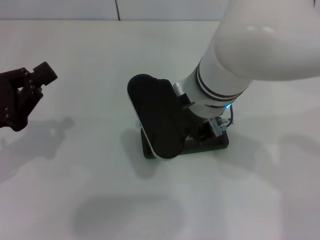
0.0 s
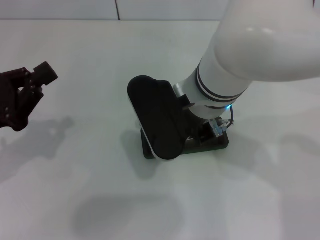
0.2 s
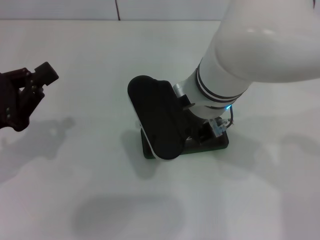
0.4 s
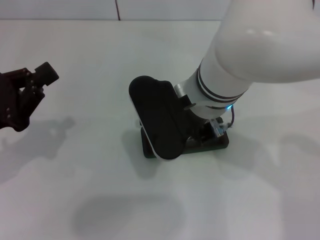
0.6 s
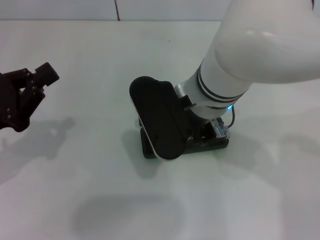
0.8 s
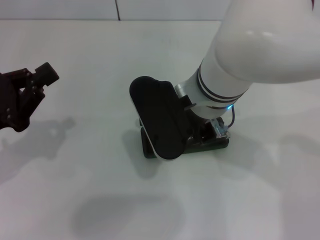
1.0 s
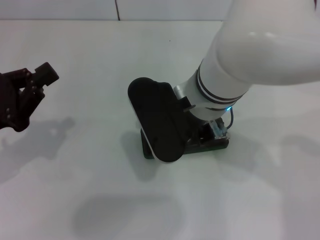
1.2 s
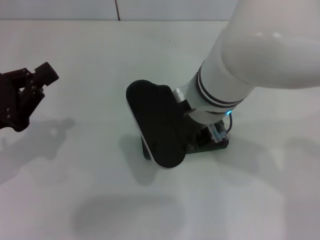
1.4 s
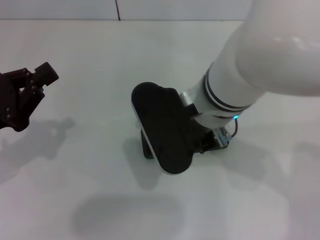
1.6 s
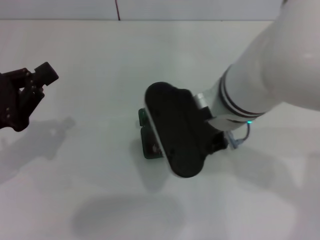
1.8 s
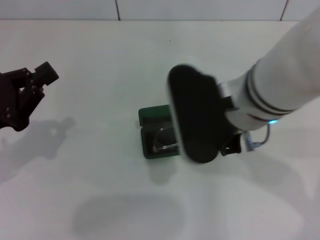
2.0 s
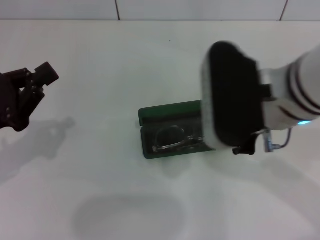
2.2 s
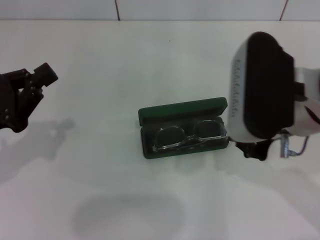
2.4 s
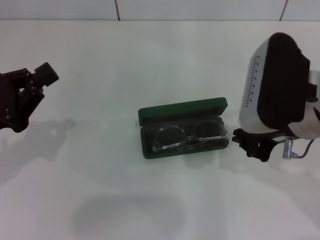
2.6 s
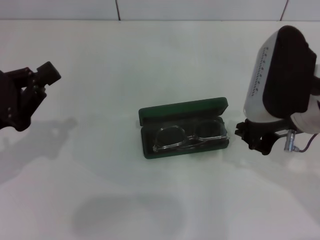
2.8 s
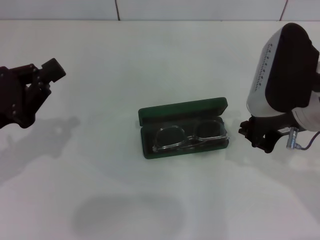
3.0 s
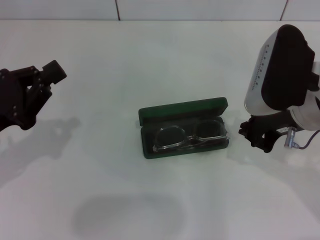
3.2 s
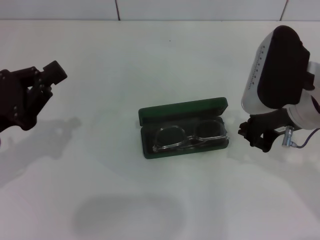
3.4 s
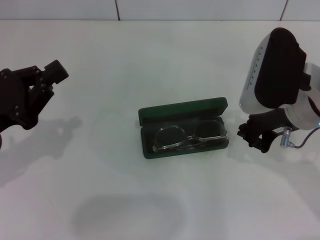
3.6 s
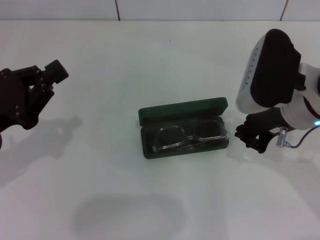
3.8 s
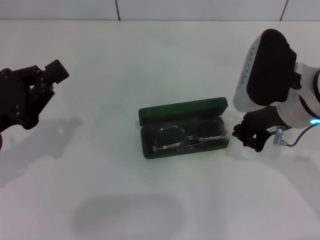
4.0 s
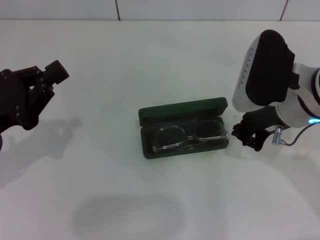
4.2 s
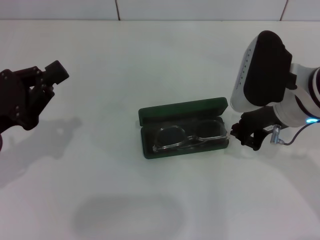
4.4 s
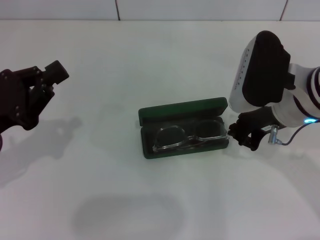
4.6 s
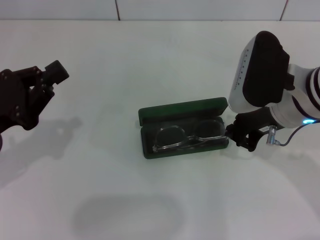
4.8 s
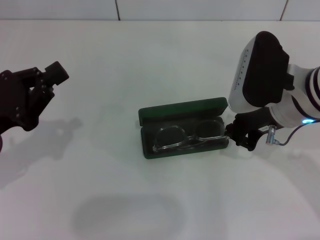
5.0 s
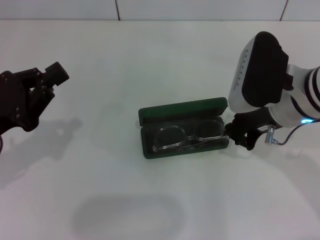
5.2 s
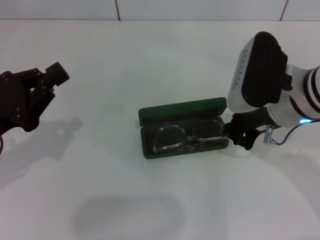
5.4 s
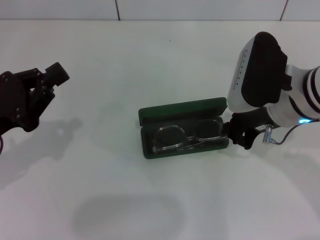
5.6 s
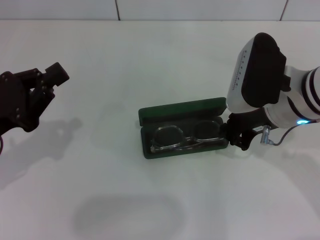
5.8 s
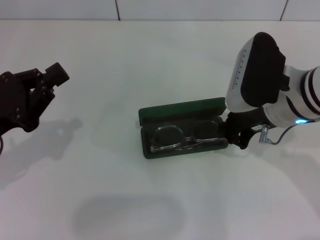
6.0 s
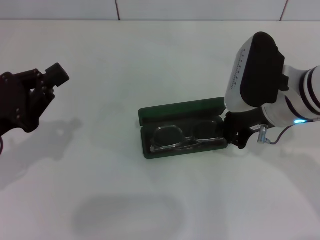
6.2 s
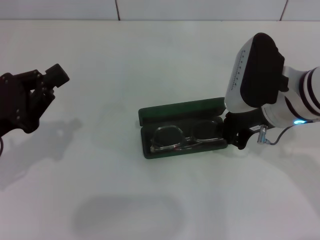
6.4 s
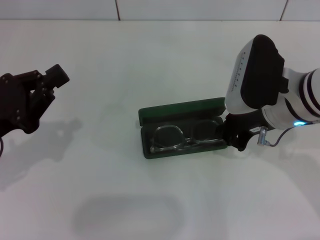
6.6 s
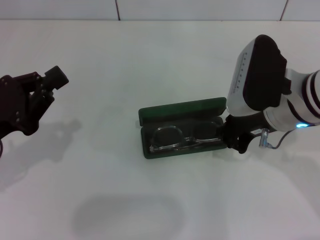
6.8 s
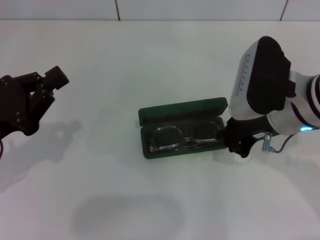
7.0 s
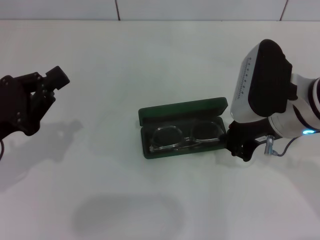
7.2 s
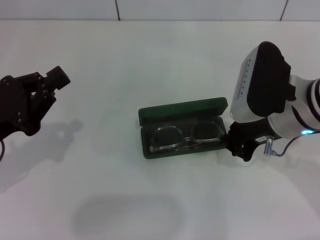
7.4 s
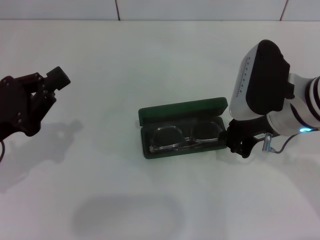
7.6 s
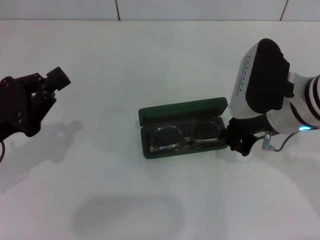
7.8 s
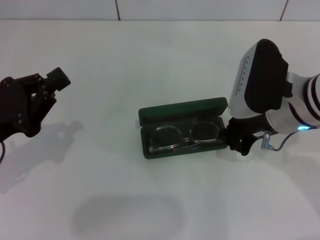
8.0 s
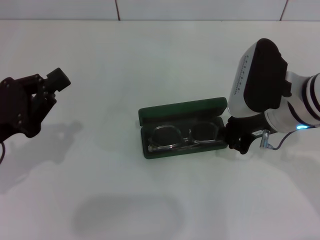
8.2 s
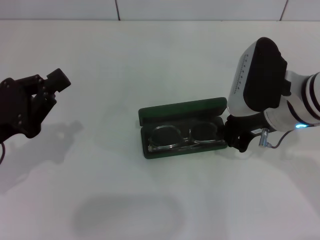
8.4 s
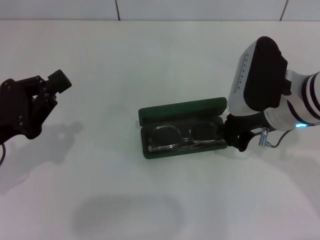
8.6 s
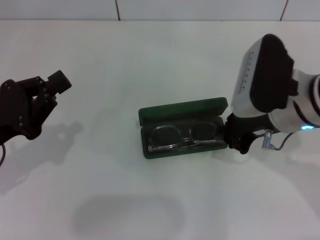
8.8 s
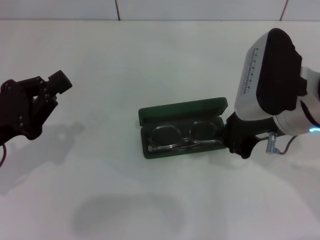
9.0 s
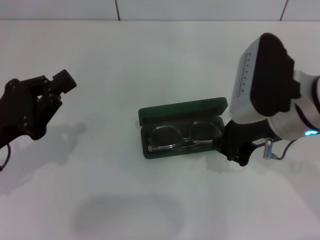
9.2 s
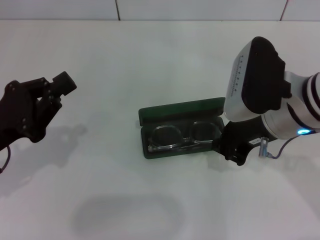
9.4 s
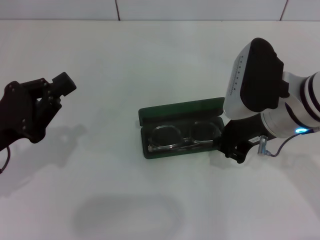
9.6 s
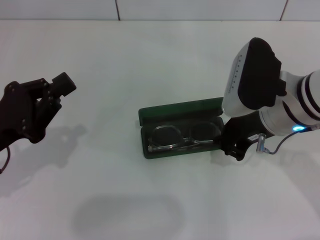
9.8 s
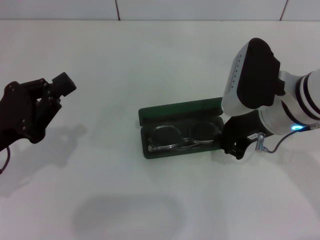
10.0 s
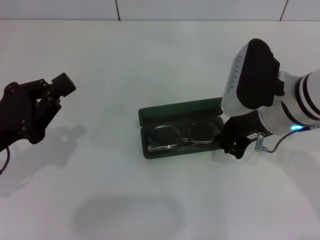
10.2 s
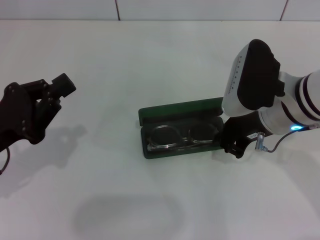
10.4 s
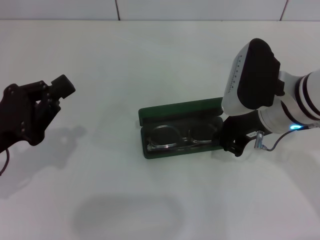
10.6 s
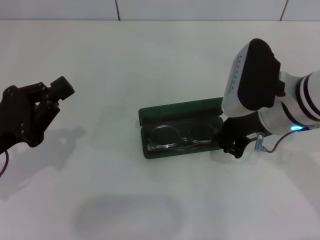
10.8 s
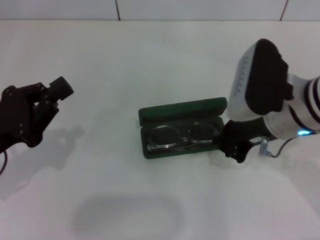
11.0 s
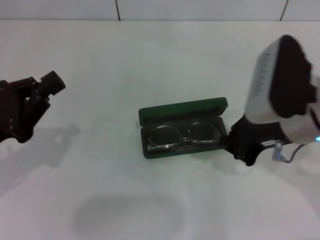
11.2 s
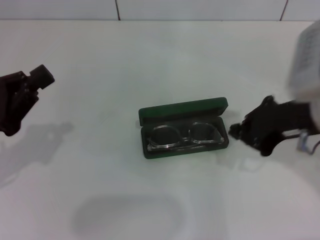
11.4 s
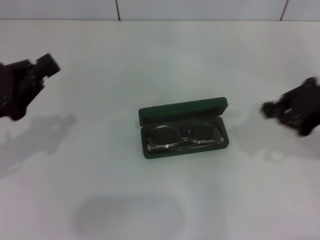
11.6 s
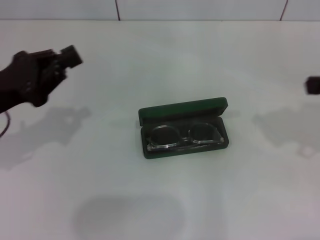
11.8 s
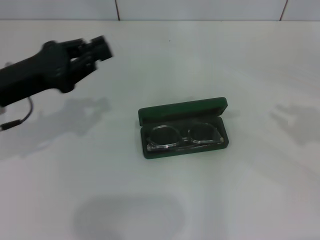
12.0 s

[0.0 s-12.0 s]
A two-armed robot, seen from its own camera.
Step, 0.0 to 11.2 s: Put the glasses into the case with your right hand.
0.0 to 1.6 s: There are only small adjustments of the grippers.
1.6 to 3.0 s: The right gripper moves to the right, about 15 cm.
3.0 to 9.0 s: The grippers make only small movements.
9.0 to 10.4 s: The grippers stay close to where they were, moving slightly.
10.4 to 12.0 s: The right gripper is displaced to the right by some 25 cm, while the left gripper is displaced forward by about 5 cm.

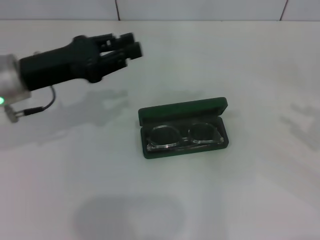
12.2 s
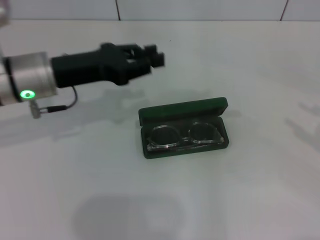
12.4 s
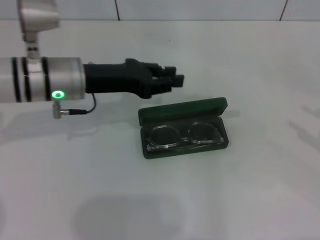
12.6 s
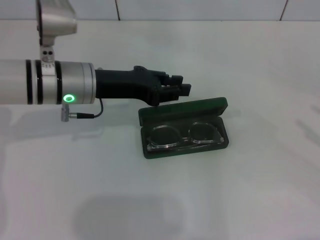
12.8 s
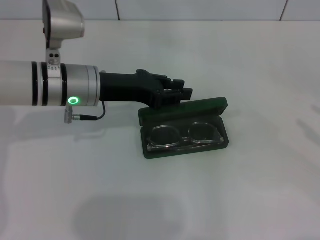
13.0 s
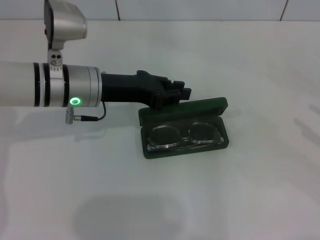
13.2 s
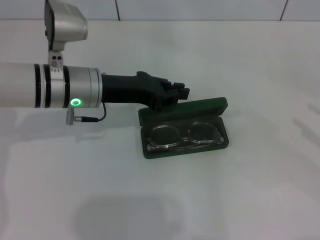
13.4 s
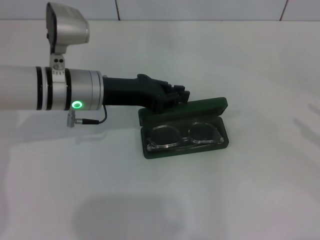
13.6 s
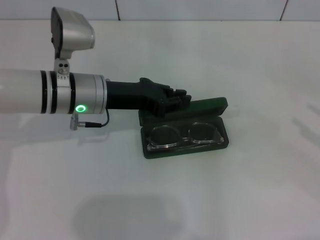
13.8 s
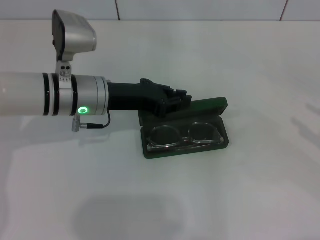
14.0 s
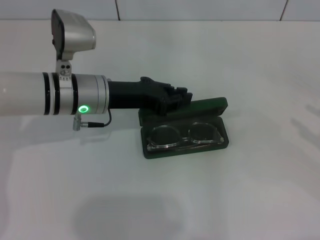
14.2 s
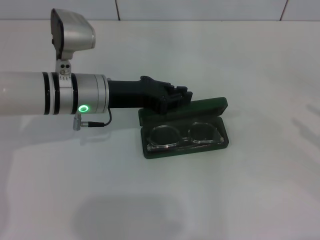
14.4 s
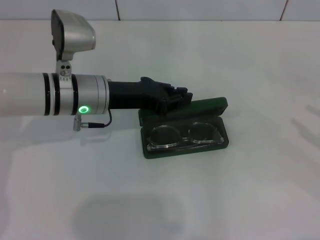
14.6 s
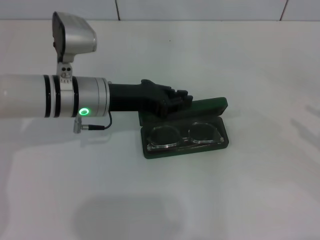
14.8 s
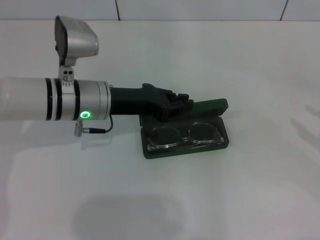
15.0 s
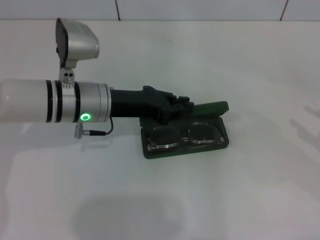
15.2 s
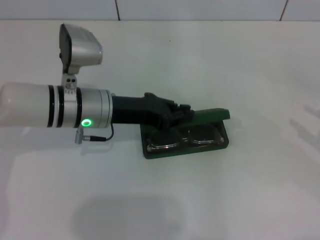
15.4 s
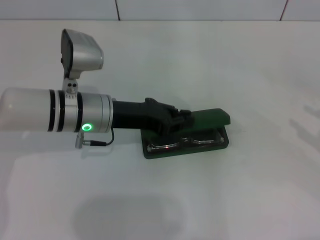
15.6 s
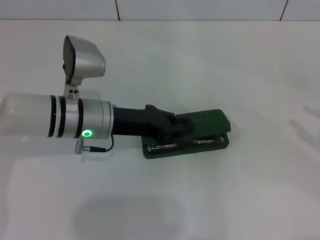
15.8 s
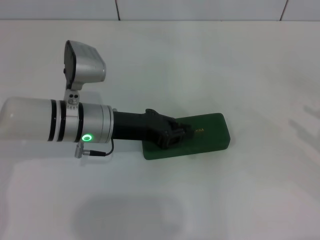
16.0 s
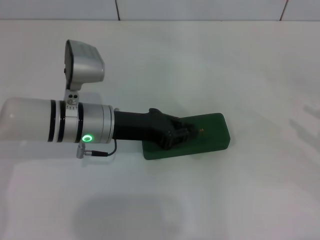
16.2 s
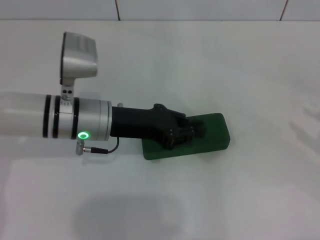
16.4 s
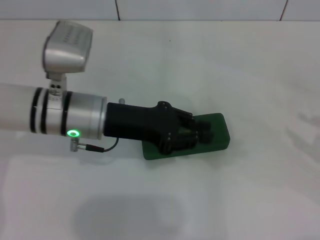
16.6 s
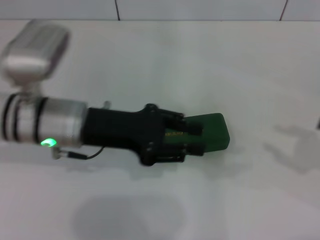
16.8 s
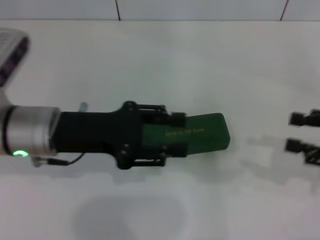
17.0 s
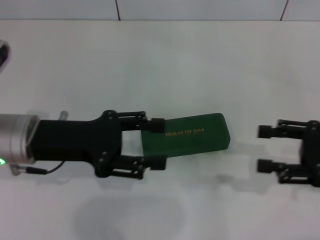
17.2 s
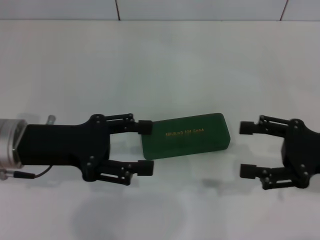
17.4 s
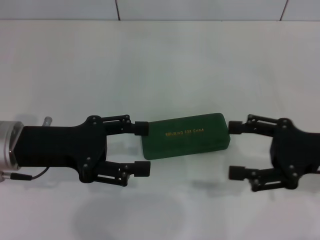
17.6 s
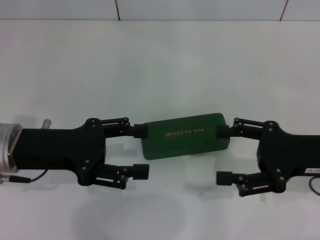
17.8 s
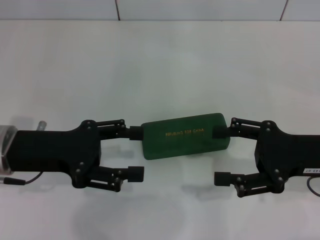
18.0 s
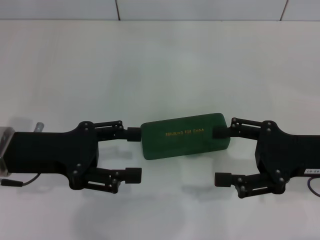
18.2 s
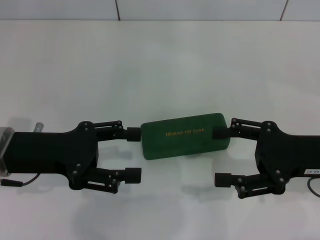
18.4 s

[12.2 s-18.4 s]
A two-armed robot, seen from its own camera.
Step, 12.2 to 16.2 s: Close the glasses case with your left hand.
12.2 to 13.8 s: The right gripper ends up roughly 5 cm from where it was, and opens its fingers. Meanwhile the left gripper shifts roughly 10 cm to the right.
13.8 to 15.4 s: The grippers make only small movements.
15.4 to 16.8 s: The left gripper changes place by approximately 5 cm.
16.8 to 18.4 s: The right gripper is displaced to the left by approximately 15 cm; the left gripper goes about 10 cm to the left, and opens up.

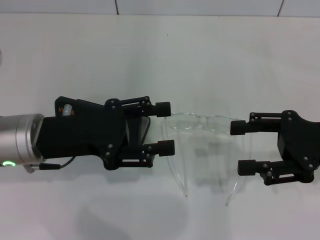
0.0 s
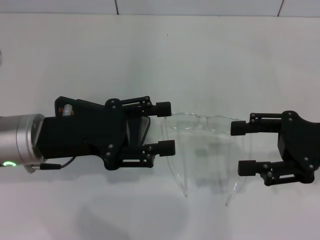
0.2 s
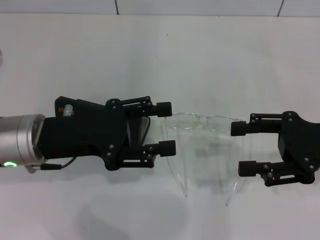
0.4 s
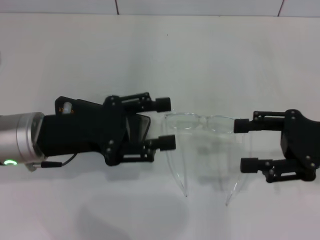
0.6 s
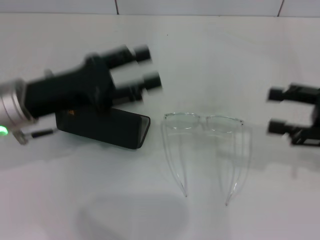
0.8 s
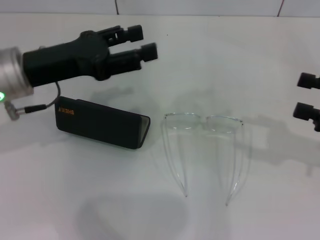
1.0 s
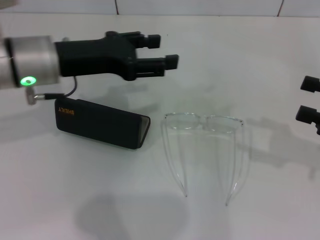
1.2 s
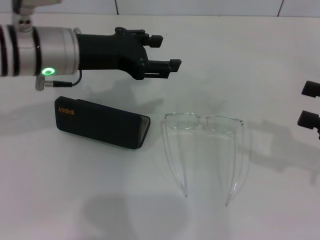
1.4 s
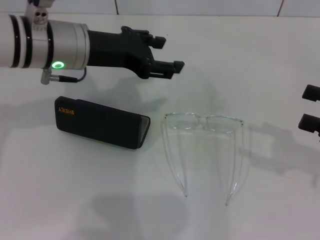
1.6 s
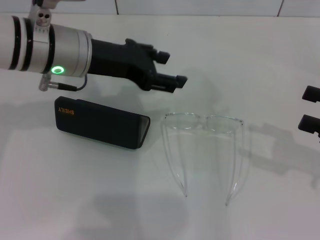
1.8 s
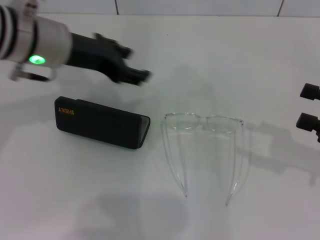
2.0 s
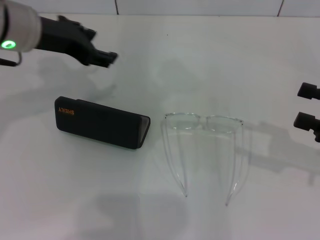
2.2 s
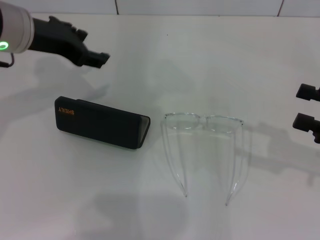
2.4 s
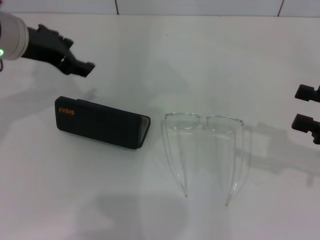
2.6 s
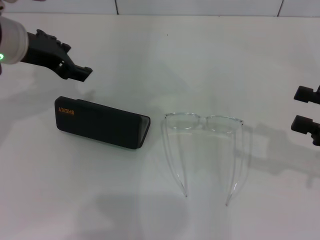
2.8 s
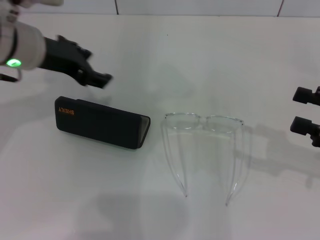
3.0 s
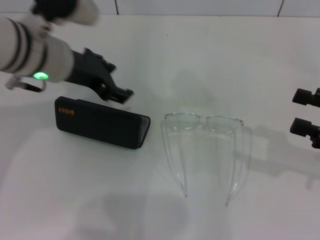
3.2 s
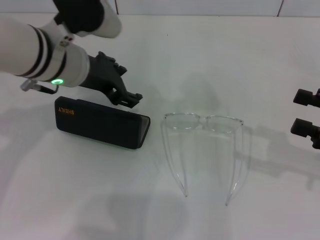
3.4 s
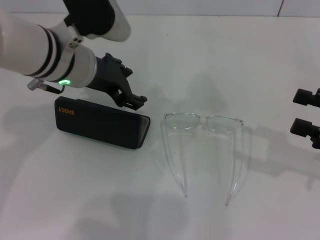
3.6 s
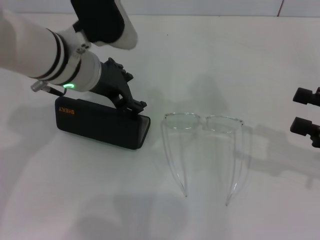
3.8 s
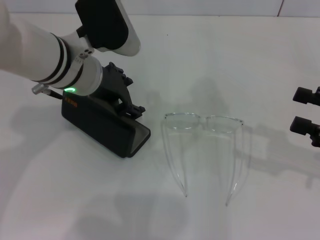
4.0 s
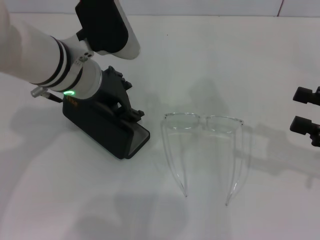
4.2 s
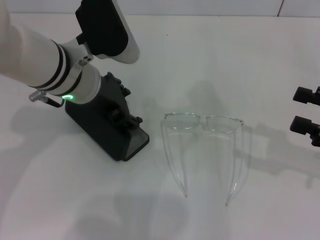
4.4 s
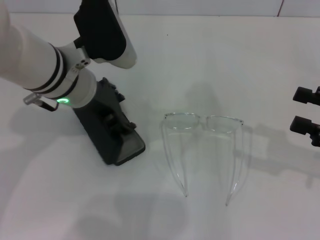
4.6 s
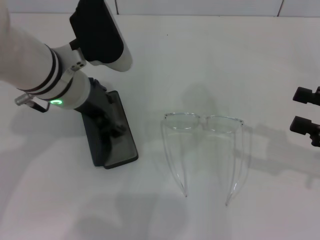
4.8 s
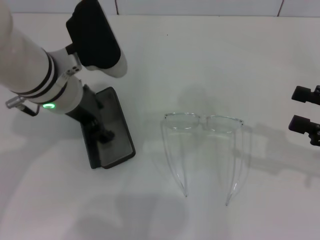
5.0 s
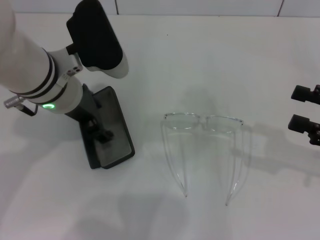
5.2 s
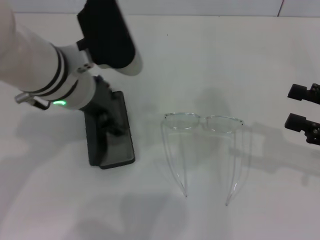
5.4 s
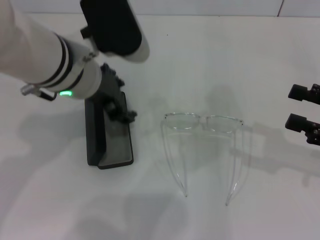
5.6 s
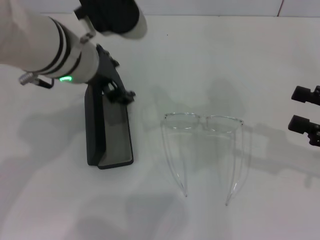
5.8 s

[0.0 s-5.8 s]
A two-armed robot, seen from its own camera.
0.0 to 1.4 s: The right gripper heads to the right, covering roughly 10 cm, while the left gripper moves forward and upward, approximately 10 cm.
1.4 to 2.8 s: The left gripper ends up about 5 cm from where it was.
2.8 to 4.4 s: The left gripper is displaced to the right by some 10 cm.
4.4 to 5.8 s: The left gripper shifts by roughly 5 cm.
